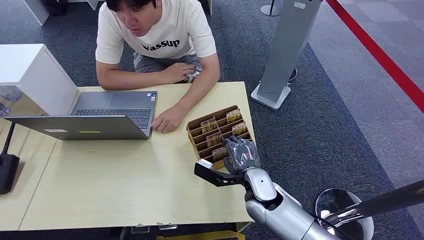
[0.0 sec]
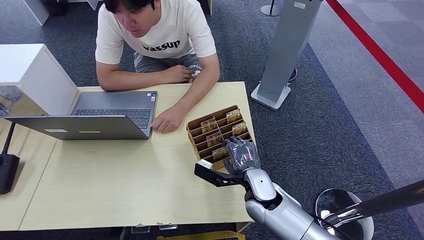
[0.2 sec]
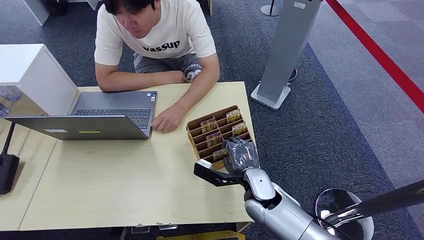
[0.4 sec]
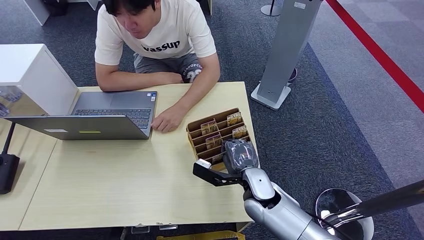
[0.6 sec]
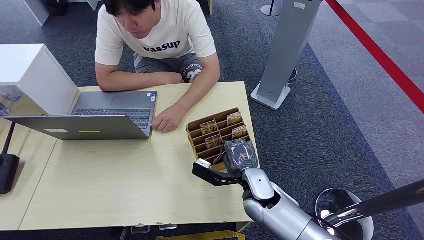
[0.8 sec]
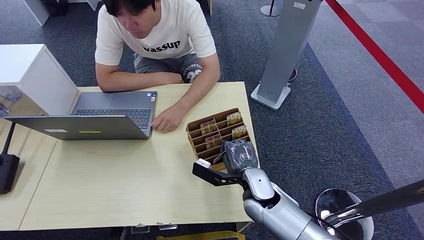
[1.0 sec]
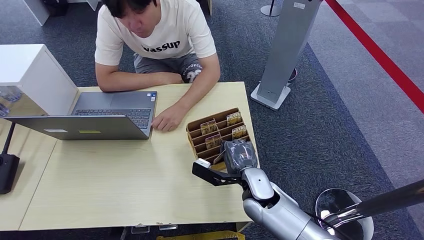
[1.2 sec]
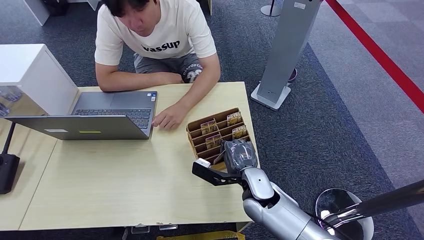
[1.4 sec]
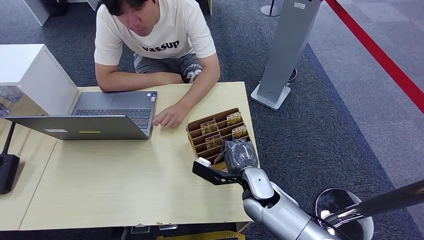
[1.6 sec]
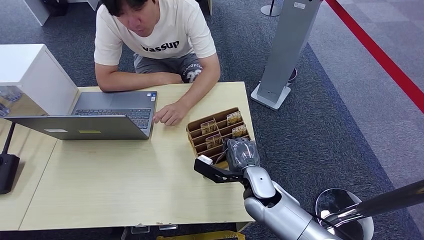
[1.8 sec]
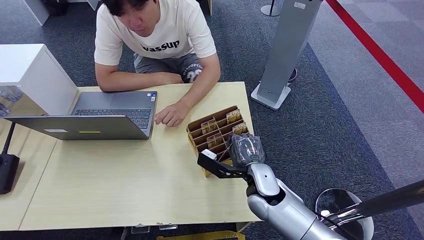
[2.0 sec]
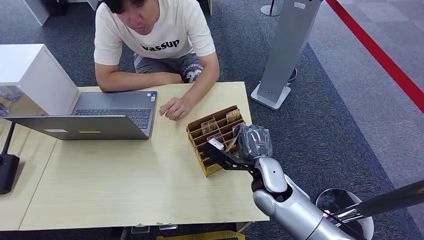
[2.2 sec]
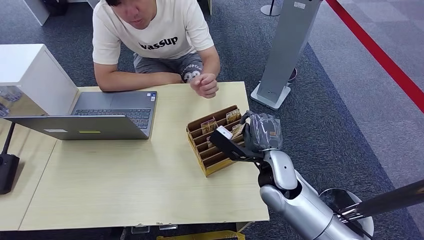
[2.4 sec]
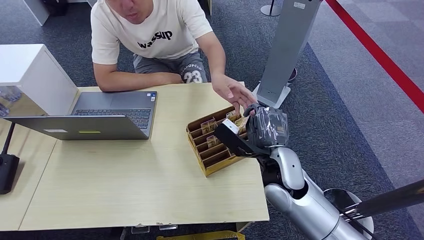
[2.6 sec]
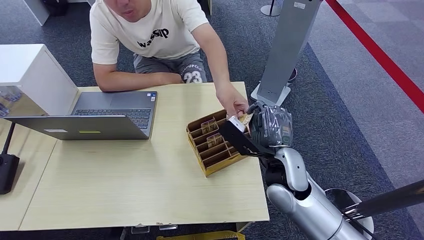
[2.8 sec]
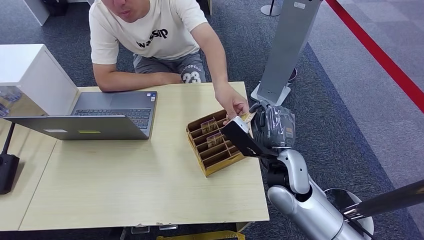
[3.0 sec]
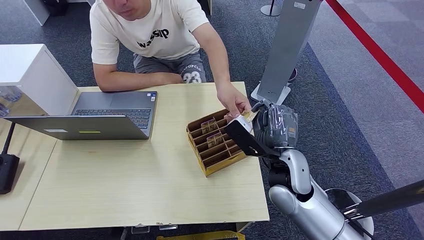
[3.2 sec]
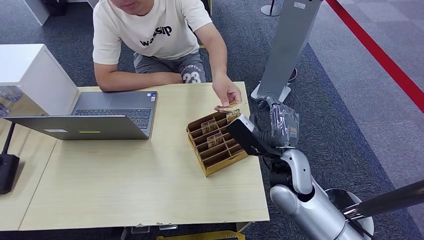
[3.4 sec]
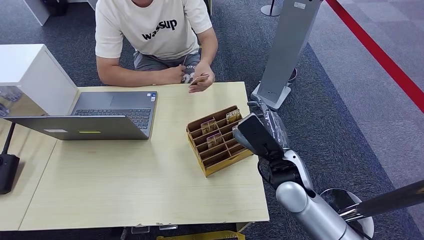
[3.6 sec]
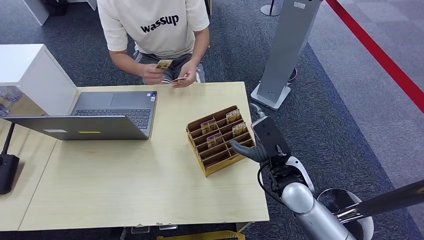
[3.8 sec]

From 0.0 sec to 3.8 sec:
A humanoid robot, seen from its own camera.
Step, from 0.0 sec to 2.4 sec: Pick up the key card from the card box.
Step, from 2.8 sec to 3.8 sec: Hand the key card to the target.
From 1.2 sec to 2.6 sec: The right hand heads upward, covering about 10 cm.
